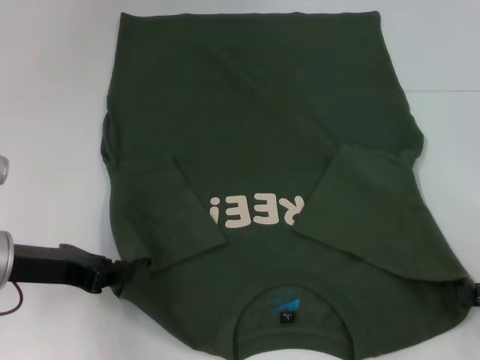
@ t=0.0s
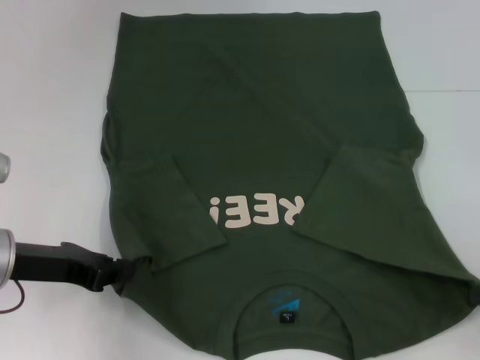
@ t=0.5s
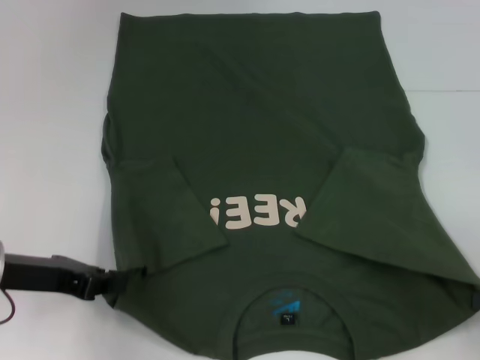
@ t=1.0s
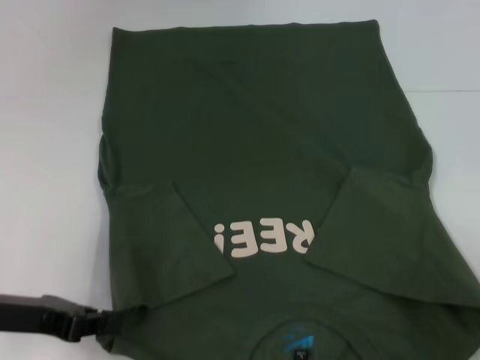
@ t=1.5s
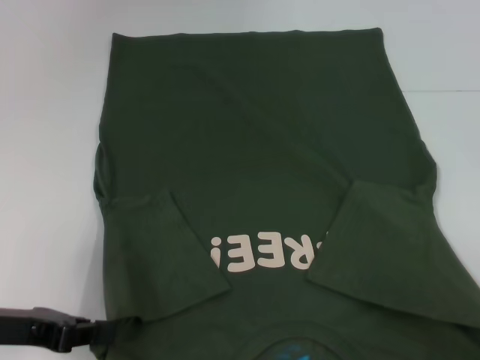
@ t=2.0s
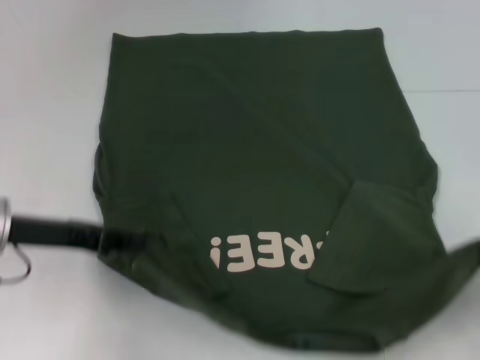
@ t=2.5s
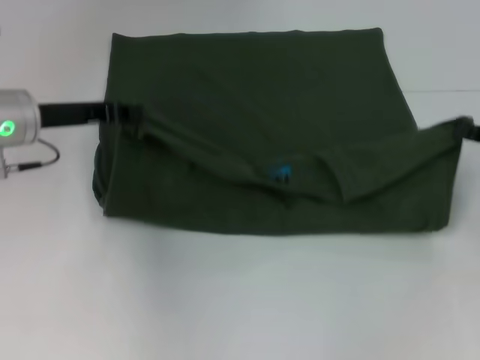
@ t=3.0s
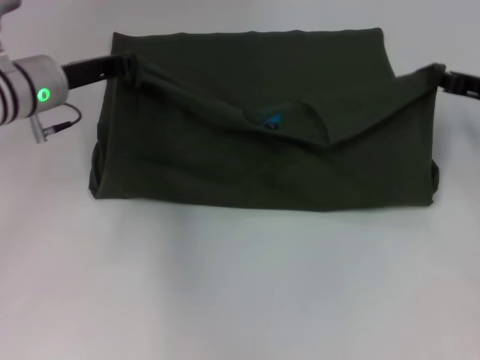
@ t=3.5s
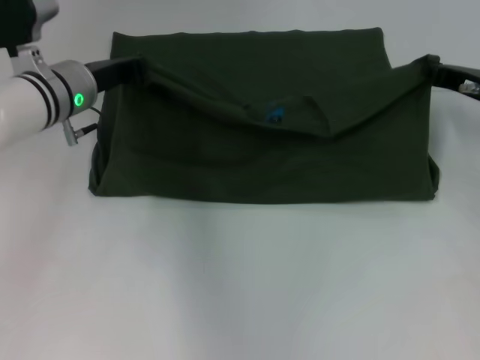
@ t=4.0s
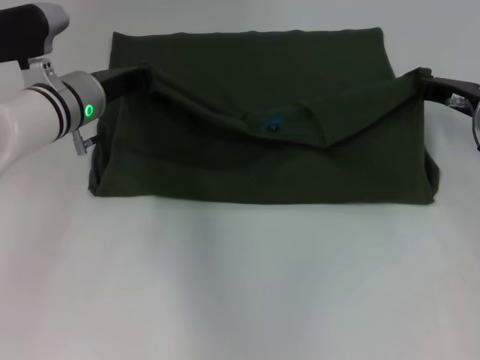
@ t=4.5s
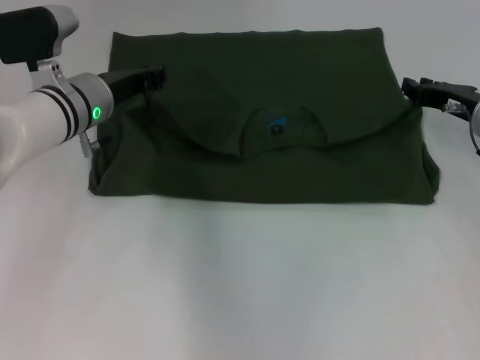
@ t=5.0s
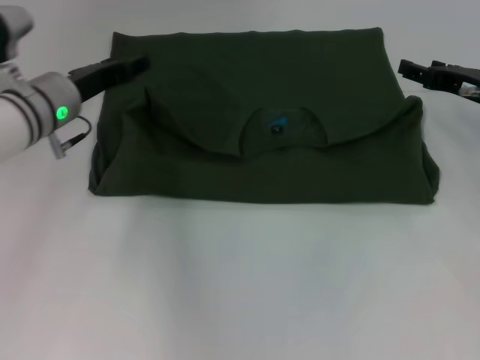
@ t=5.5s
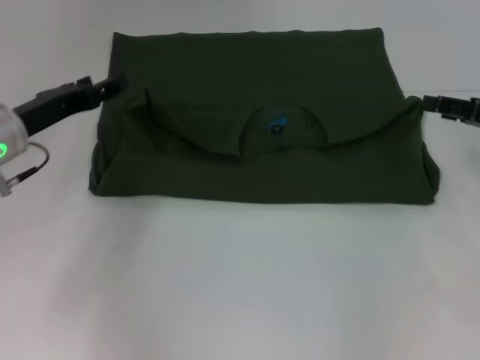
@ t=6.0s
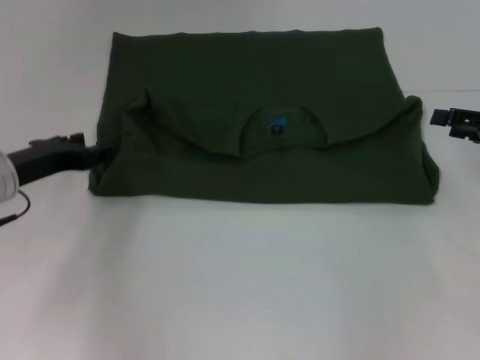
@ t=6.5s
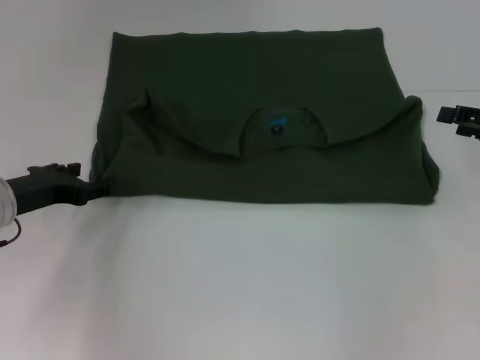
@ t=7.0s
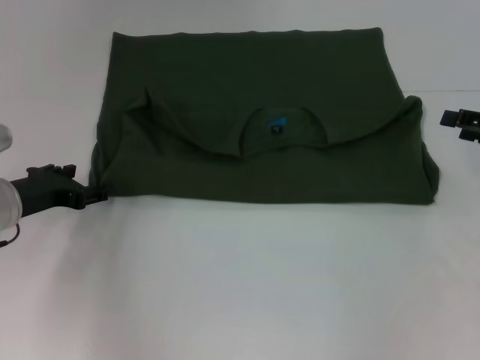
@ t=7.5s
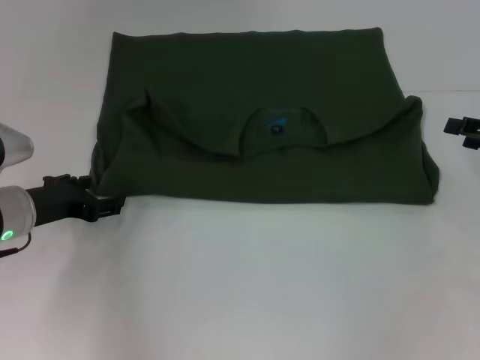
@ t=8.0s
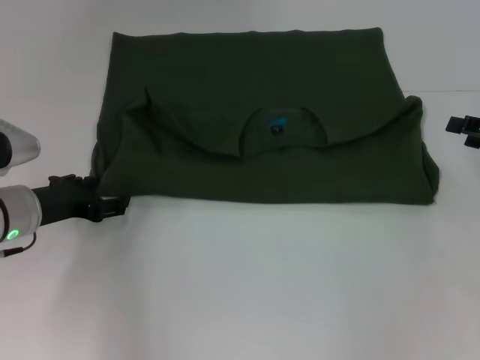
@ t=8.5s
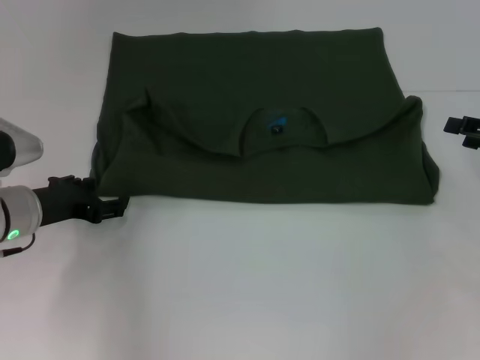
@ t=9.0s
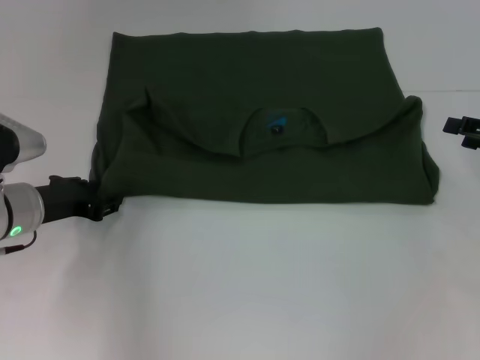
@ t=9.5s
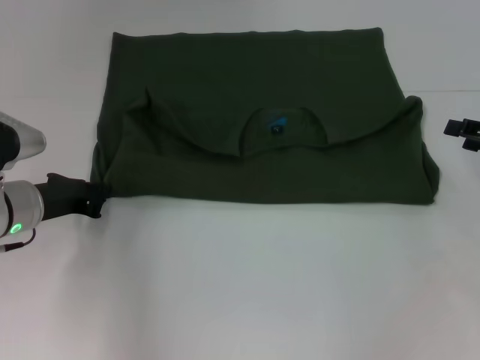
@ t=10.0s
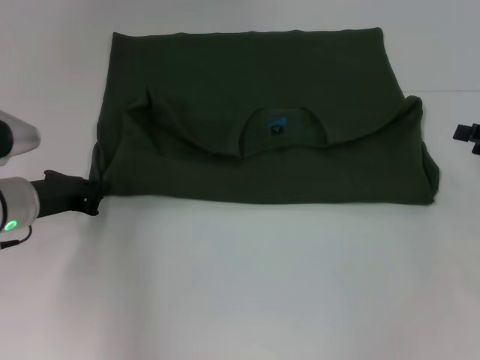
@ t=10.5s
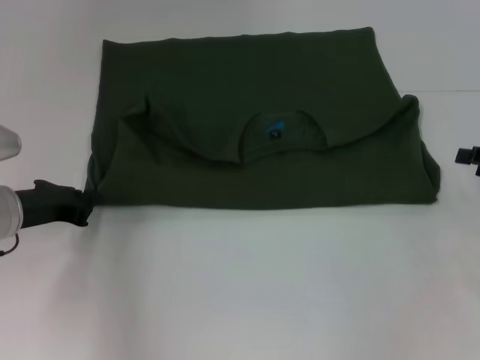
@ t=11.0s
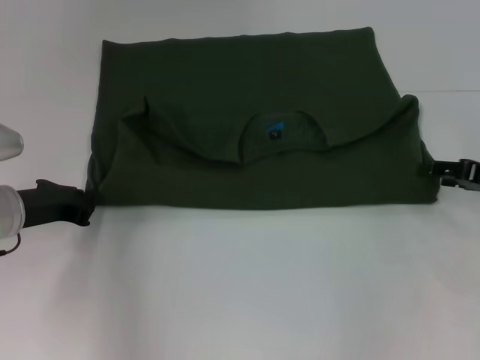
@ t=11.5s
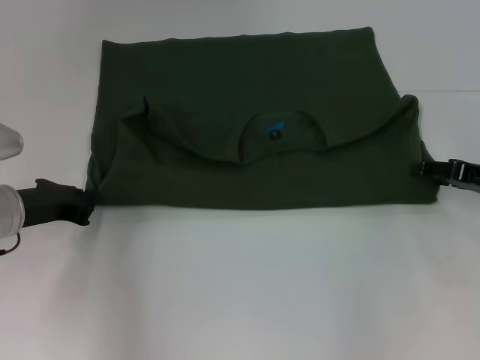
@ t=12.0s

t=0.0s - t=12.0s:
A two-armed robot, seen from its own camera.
Step, t=1.5s - t=5.0s: Fold the clothes with your left hand.
Step, t=1.5s - t=5.0s: Fold the clothes with your right hand.
t=0.0s - t=2.0s: The right gripper is displaced backward by approximately 10 cm, and closes up; the left gripper shifts some 5 cm backward.
t=2.0s - t=4.0s: The left gripper heads forward and to the right, covering about 25 cm, while the right gripper shifts roughly 30 cm forward.
t=4.0s - t=6.0s: The right gripper is displaced backward by roughly 5 cm, and opens. Meanwhile the left gripper heads backward and to the left, covering some 10 cm, and opens its fingers.
t=6.0s - t=8.0s: The left gripper heads downward, covering some 5 cm.
t=8.0s - t=10.0s: The left gripper closes.
t=10.0s - t=12.0s: The grippers stay close to where they were, moving slightly.

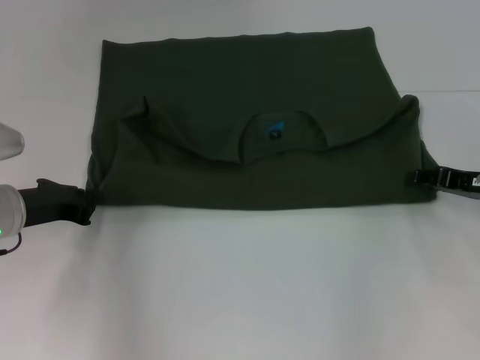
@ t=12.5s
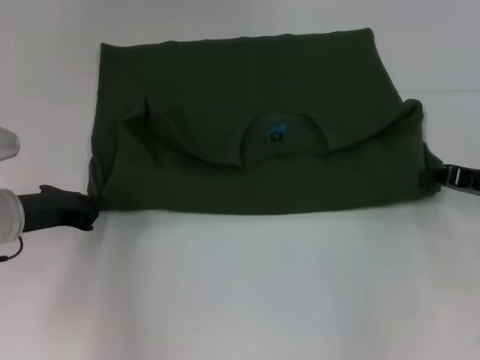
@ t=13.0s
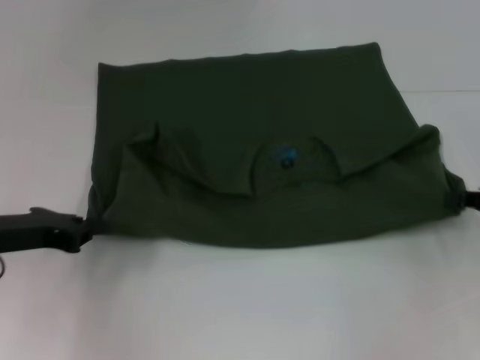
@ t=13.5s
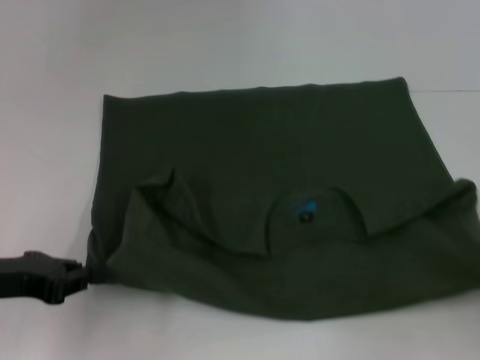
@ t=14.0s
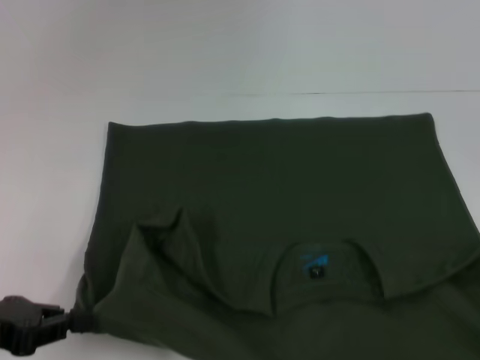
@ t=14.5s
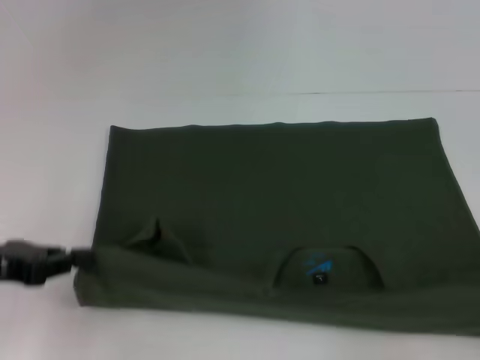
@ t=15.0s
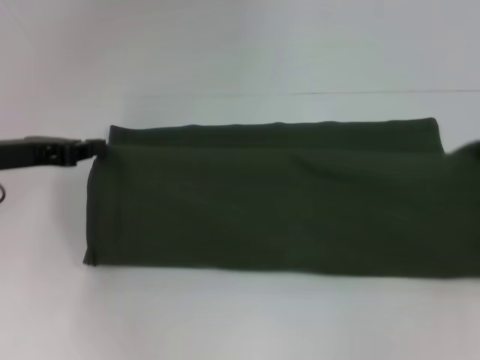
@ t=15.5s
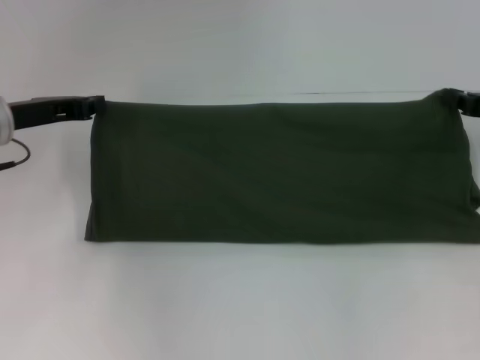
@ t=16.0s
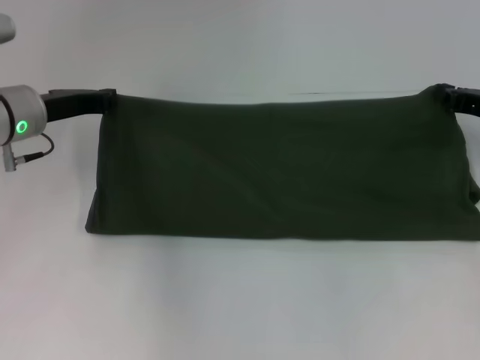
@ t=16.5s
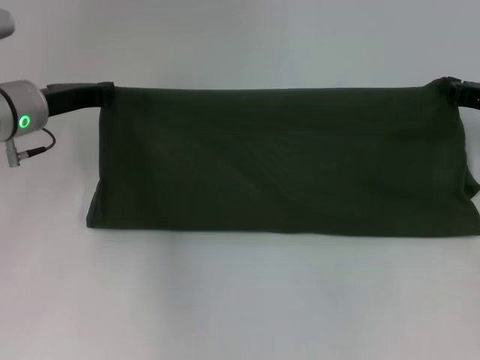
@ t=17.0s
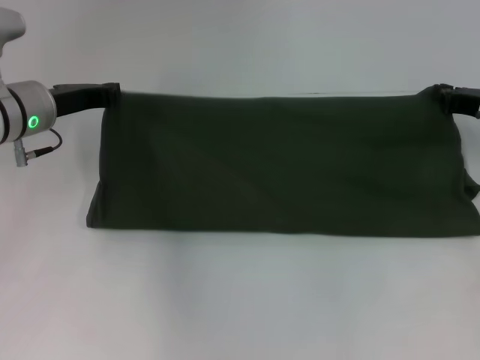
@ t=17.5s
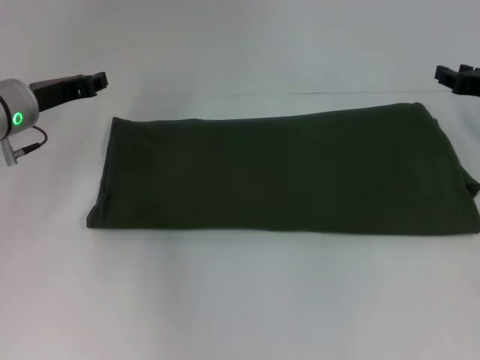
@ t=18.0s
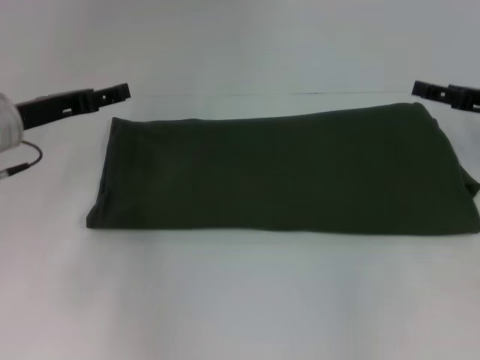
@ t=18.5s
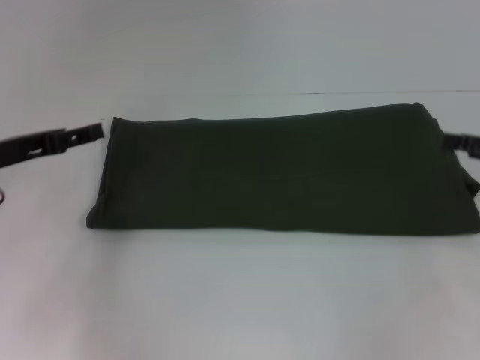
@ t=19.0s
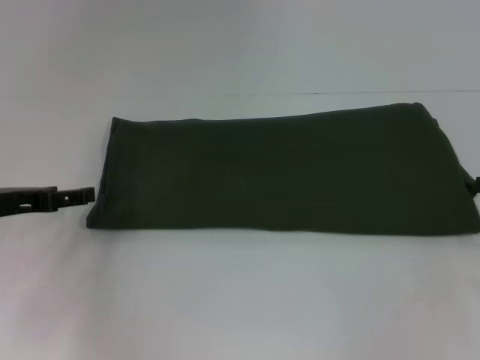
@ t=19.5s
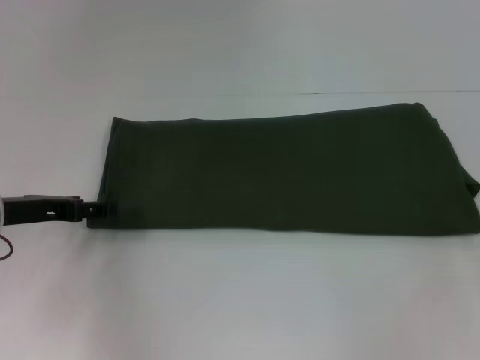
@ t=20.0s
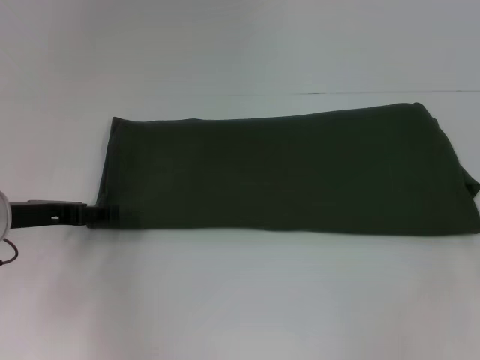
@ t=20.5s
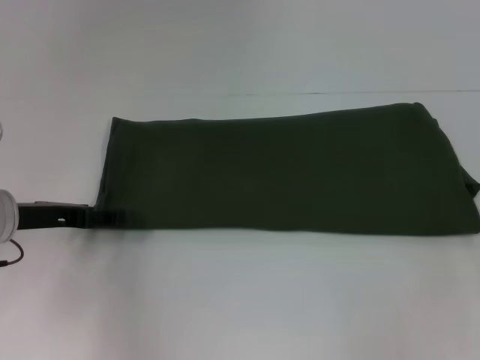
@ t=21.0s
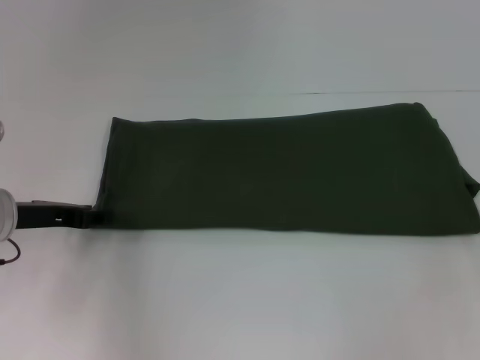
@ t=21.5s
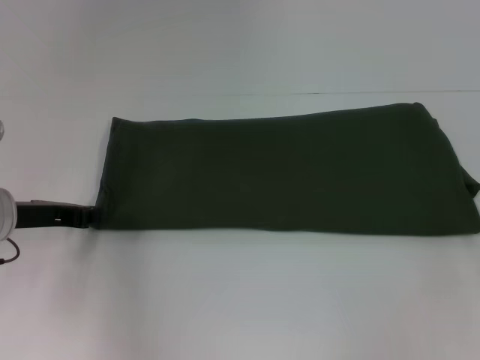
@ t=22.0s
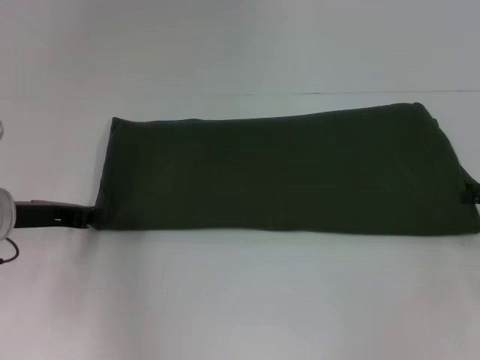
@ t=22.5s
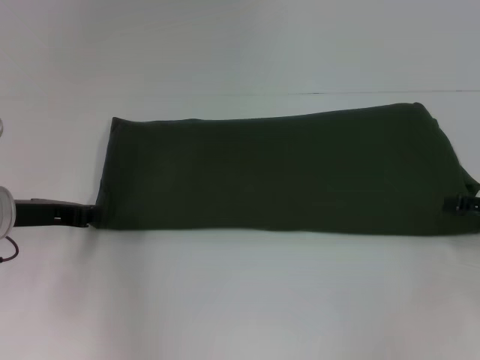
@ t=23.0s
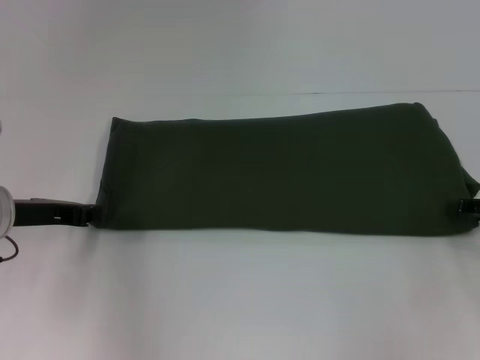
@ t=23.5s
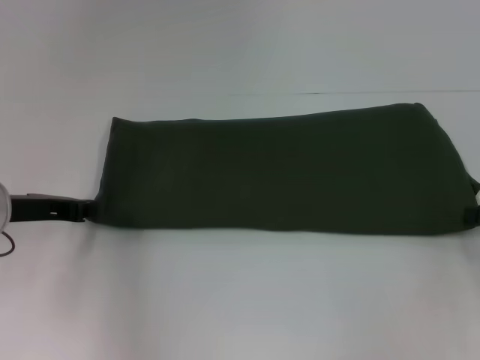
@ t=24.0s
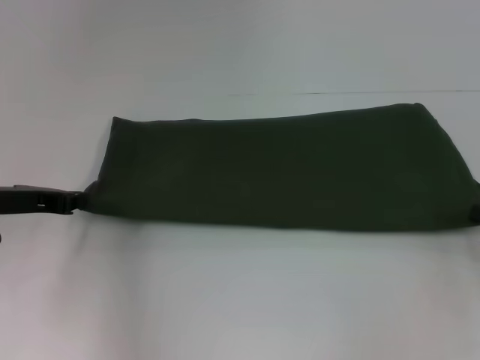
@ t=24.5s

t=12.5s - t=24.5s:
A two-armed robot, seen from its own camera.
Step, t=12.5s - t=14.5s: Pull the clothes with your left hand.
Step, t=12.5s - t=14.5s: Pull the clothes with your right hand.
Step, t=15.0s - t=17.5s: Fold the clothes with your right hand.
t=12.5s - t=14.5s: The right gripper goes roughly 25 cm backward and to the right, and closes up. Meanwhile the left gripper moves backward, approximately 10 cm.
t=14.5s - t=16.5s: The grippers both shift forward by roughly 20 cm.
t=16.5s - t=18.5s: The left gripper opens; the right gripper opens up.
t=18.5s - t=20.5s: The left gripper goes about 5 cm backward and downward. Meanwhile the right gripper moves to the right and backward, some 10 cm.
t=22.5s - t=24.5s: The right gripper closes.

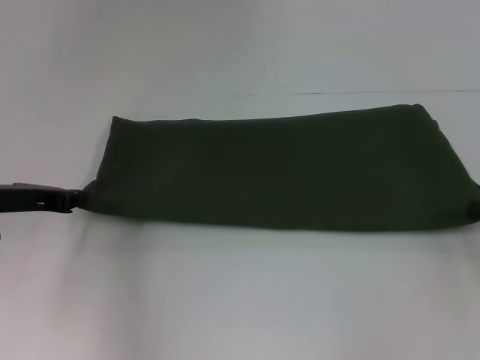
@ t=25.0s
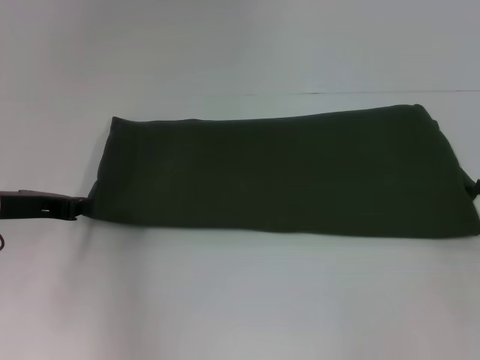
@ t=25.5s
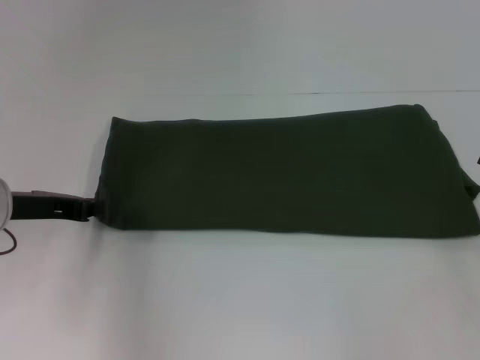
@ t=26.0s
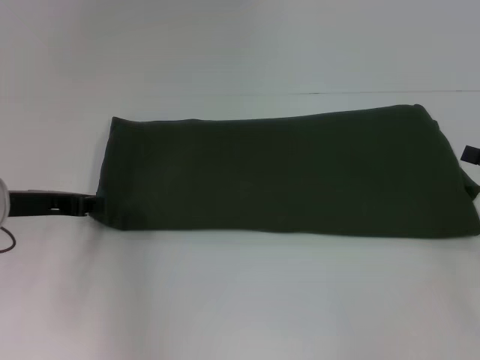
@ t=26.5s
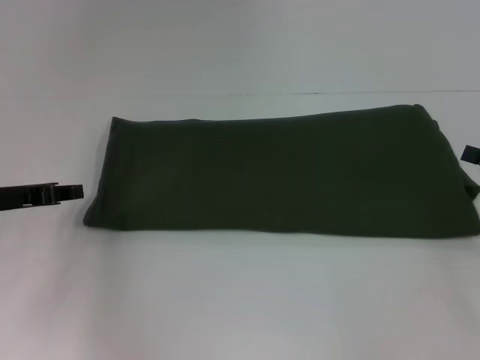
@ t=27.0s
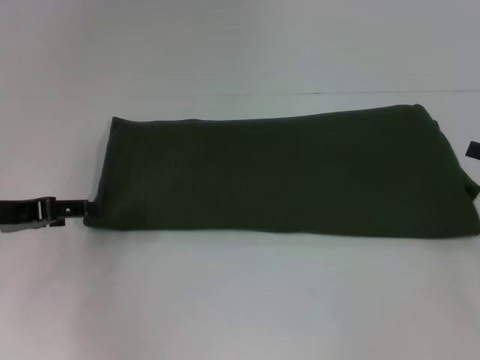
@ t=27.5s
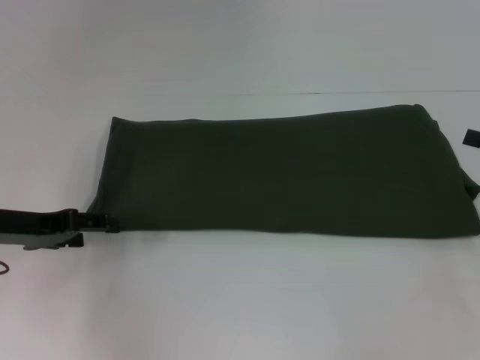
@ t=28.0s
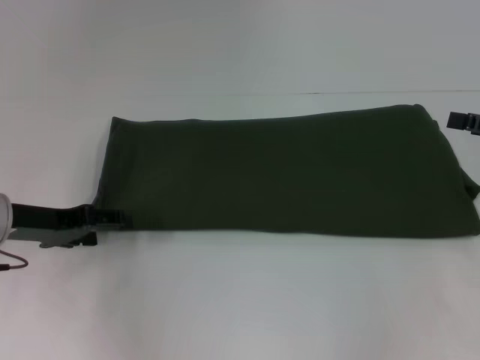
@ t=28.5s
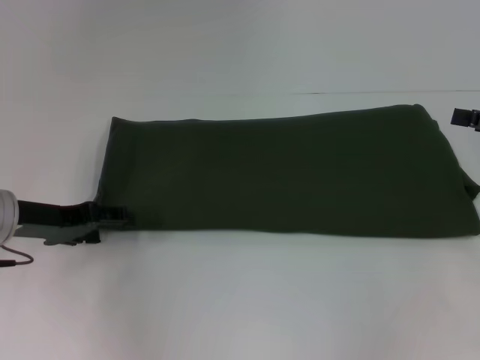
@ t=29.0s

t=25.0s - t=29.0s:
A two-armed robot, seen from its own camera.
t=25.0s - t=27.0s: The right gripper opens.
t=27.0s - t=29.0s: The left gripper opens its fingers.
